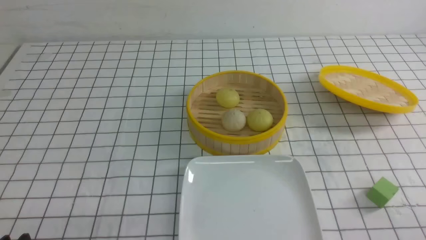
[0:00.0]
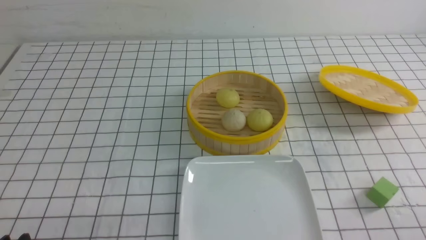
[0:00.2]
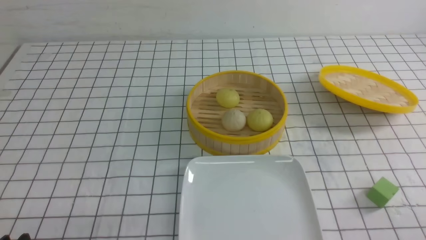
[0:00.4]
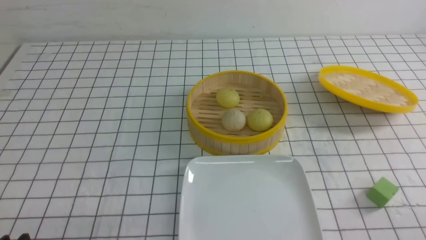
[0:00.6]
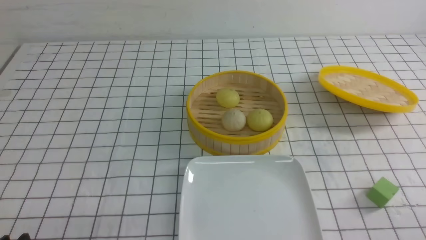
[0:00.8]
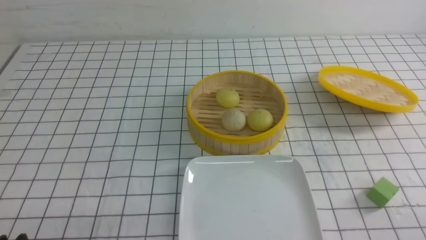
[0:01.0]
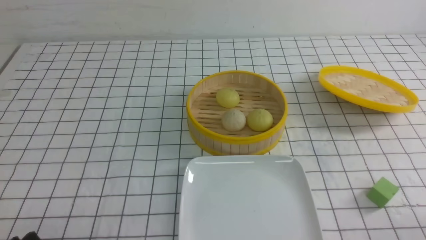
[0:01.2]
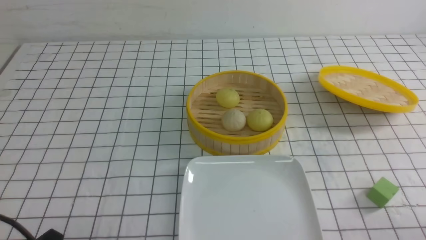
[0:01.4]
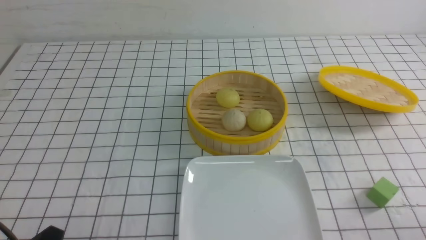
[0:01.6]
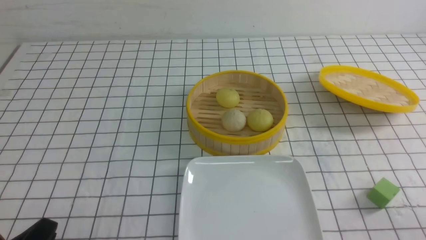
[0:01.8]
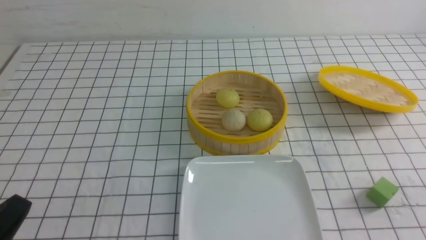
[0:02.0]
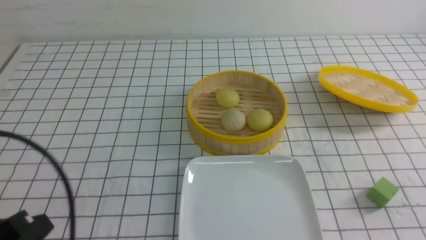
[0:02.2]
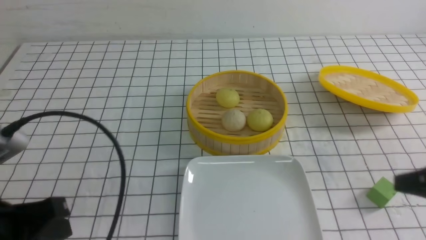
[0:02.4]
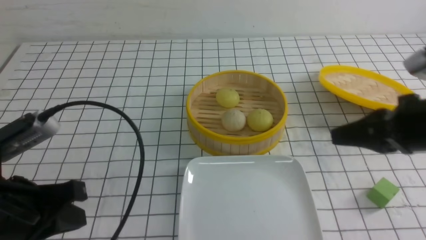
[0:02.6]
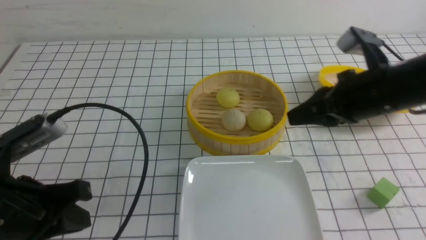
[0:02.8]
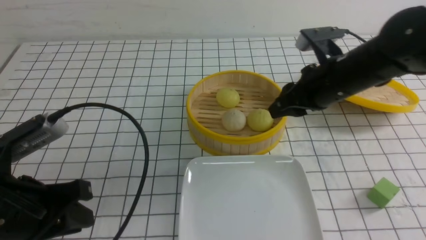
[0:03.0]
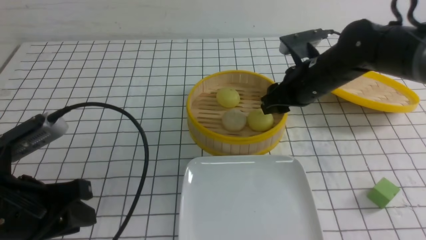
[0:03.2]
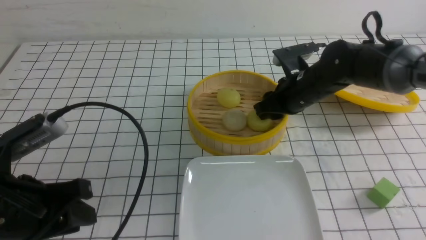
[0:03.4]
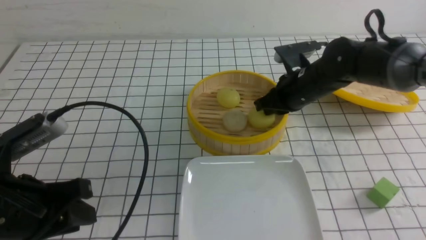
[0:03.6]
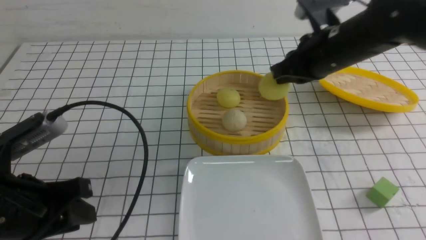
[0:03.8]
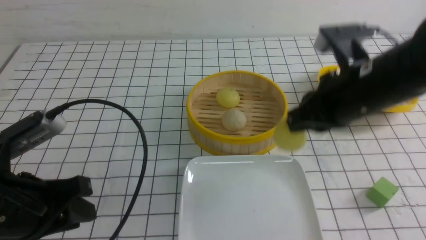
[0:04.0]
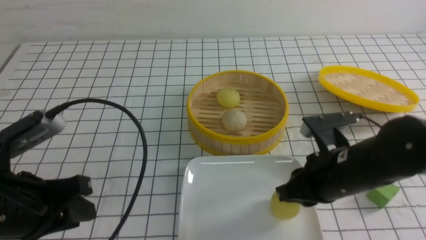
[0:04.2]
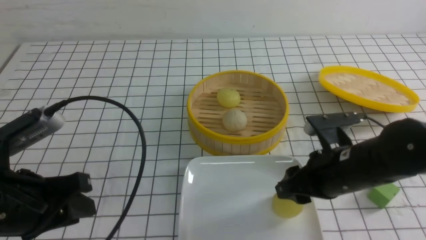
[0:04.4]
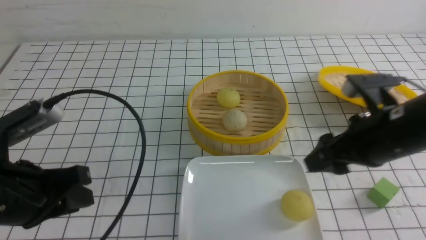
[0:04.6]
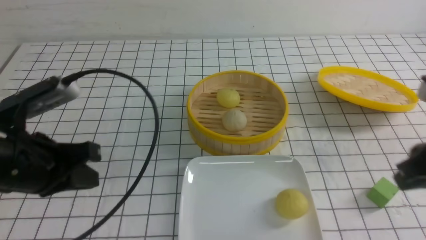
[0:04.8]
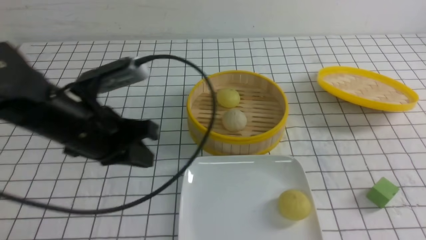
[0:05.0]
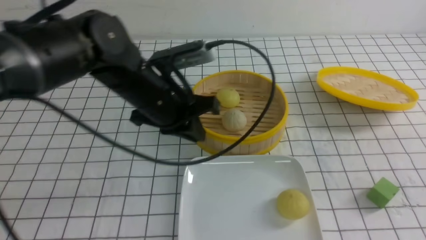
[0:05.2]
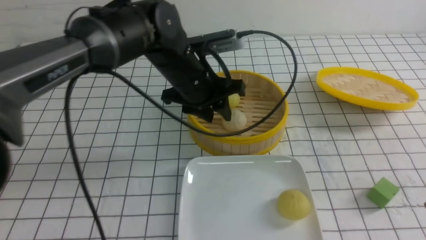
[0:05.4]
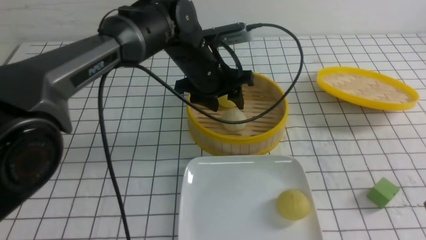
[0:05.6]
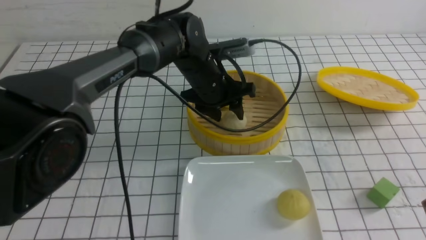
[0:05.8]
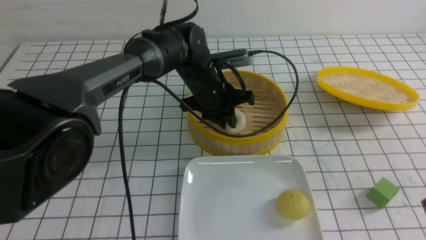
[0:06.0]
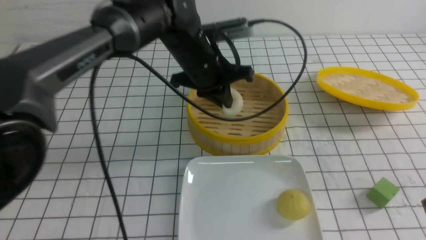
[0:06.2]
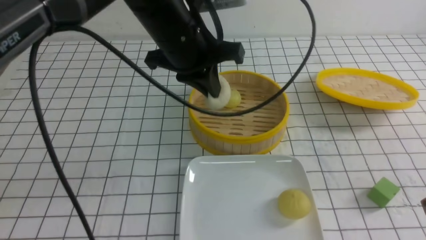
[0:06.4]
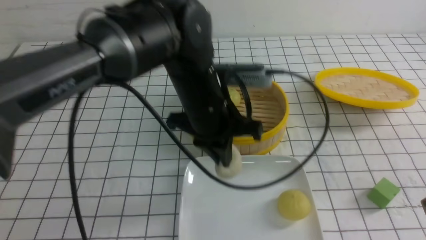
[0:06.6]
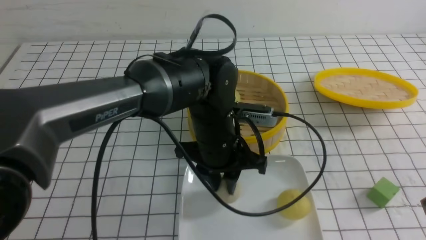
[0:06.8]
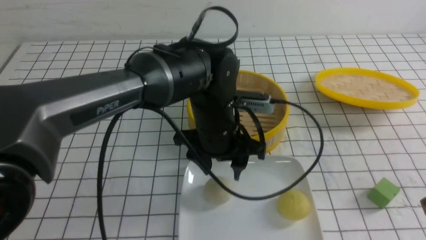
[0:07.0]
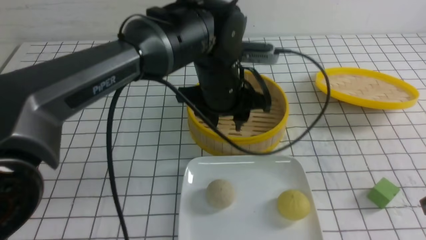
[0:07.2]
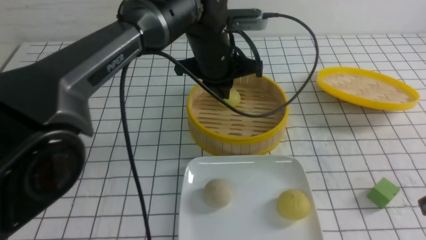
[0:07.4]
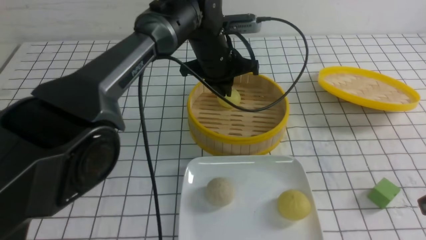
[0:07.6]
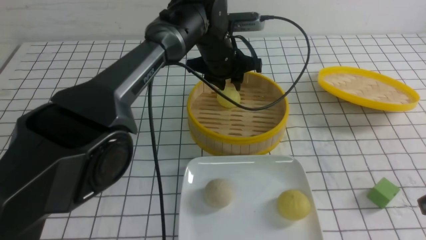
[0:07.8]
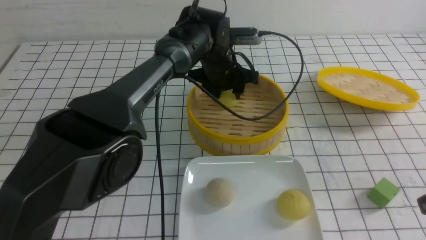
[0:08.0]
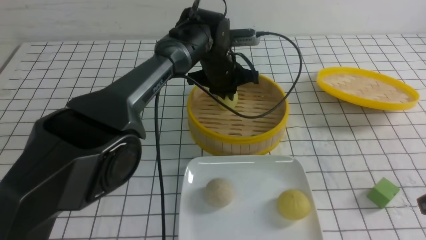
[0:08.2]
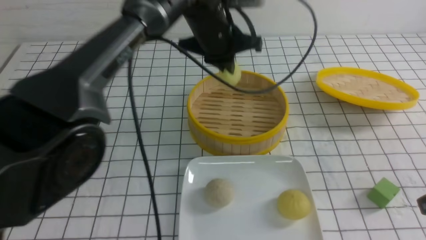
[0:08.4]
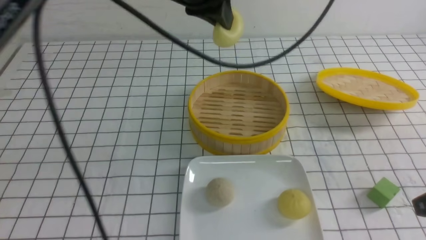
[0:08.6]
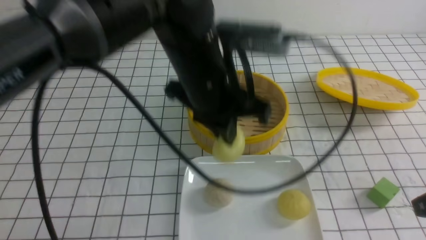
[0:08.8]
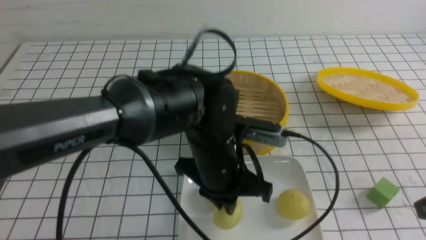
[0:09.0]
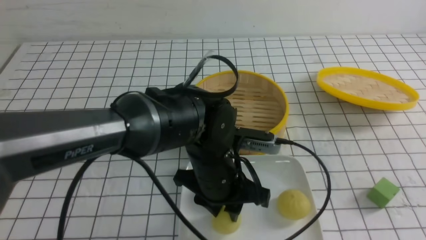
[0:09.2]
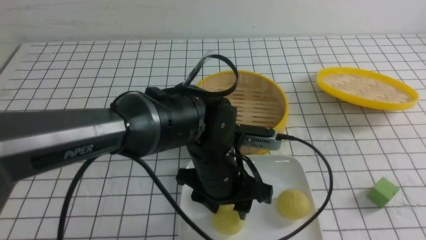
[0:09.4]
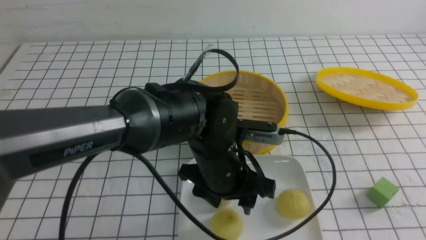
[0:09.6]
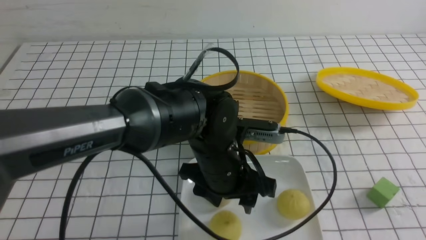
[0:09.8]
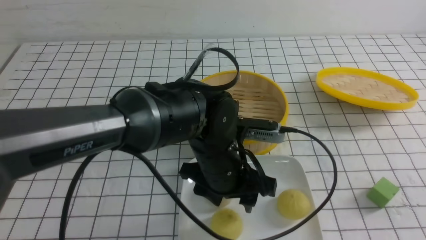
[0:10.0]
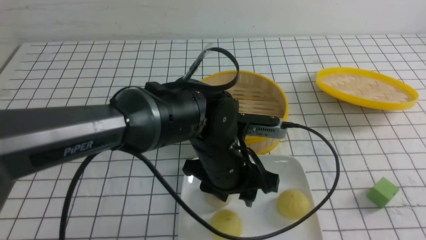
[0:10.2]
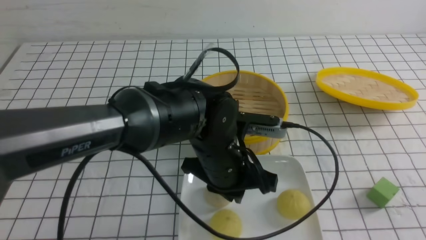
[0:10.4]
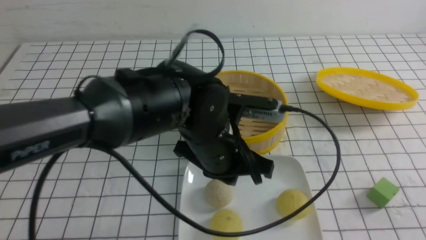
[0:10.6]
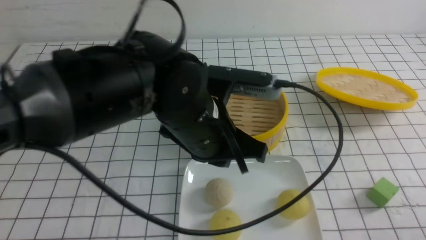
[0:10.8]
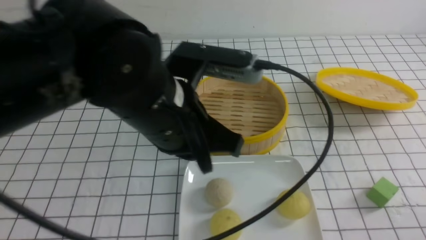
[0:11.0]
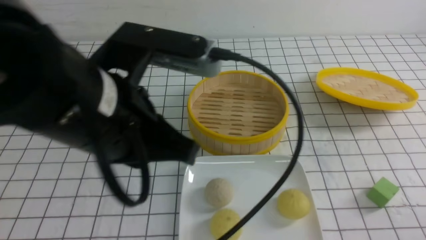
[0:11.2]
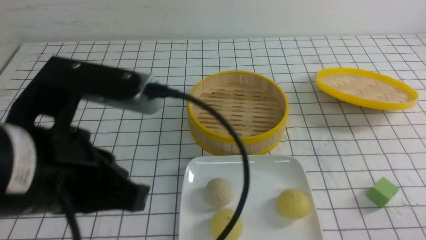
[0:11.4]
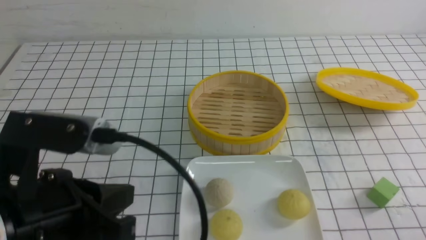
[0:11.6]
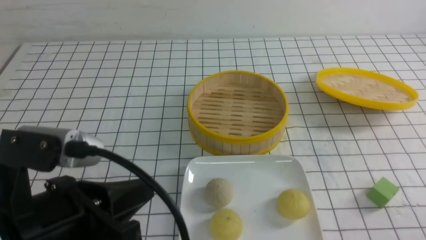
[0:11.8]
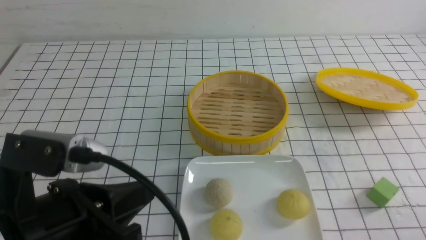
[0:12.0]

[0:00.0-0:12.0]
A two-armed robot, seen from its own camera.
Step, 0:00.0 to 0:03.4: use the right arm to grab the steamed stuffed bun that is closest to it.
Step, 0:03.8 to 0:04.2: use the right arm to put the steamed stuffed bun into the plate.
Step, 0:04.4 to 0:06.0: use the left arm to grab the steamed stuffed bun that is closest to it.
Step, 0:06.2 to 0:06.8: use the left arm to put the steamed stuffed bun into the plate.
Step, 0:07.2 to 0:08.0: use the left arm to grab the steamed stuffed bun that is closest to it.
Step, 0:08.4 to 0:09.2: use the left arm to put the steamed stuffed bun into the plate.
0:01.6 to 0:03.0: The right gripper travels forward and to the left by approximately 35 cm, and closes, then opens again. Meanwhile the left gripper moves forward and upward, some 15 cm.
0:03.0 to 0:04.4: The right gripper goes about 10 cm backward, and closes, then opens again.
0:04.4 to 0:06.0: The left gripper travels forward and to the right by roughly 35 cm, and opens, then closes once more, while the right gripper goes some 15 cm to the right and backward, and closes.
0:06.0 to 0:07.6: The left gripper moves some 10 cm backward and comes back, and opens and closes again.
0:07.6 to 0:09.0: The left gripper goes about 20 cm backward.
0:09.0 to 0:10.4: The right gripper shifts roughly 10 cm backward. The left gripper opens, then closes again.
0:10.4 to 0:12.0: The right gripper heads downward, covering roughly 10 cm. The left gripper goes approximately 25 cm to the left, backward and upward.

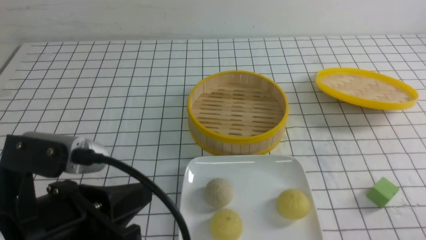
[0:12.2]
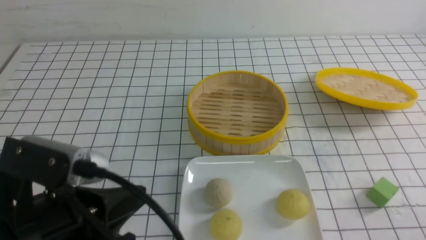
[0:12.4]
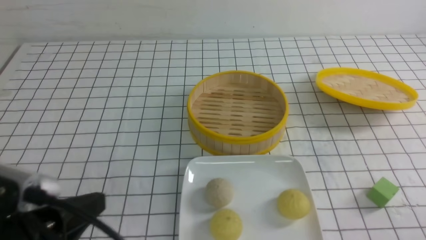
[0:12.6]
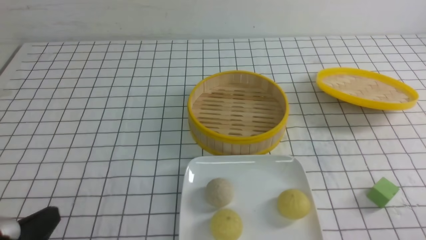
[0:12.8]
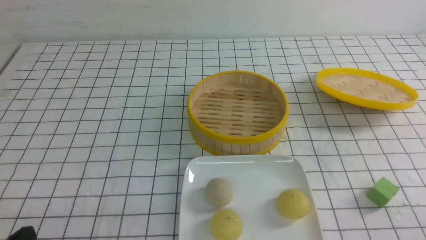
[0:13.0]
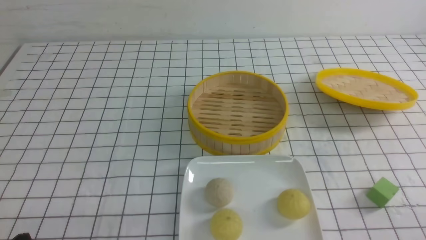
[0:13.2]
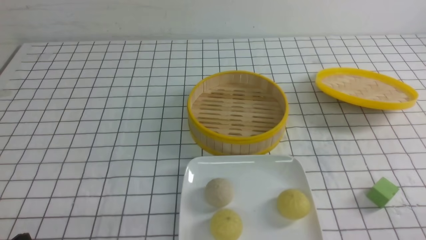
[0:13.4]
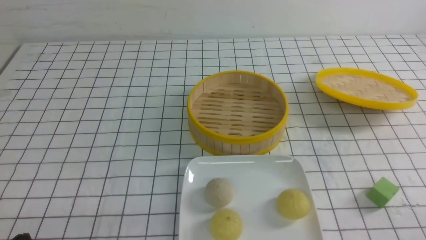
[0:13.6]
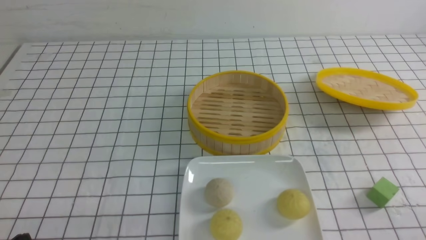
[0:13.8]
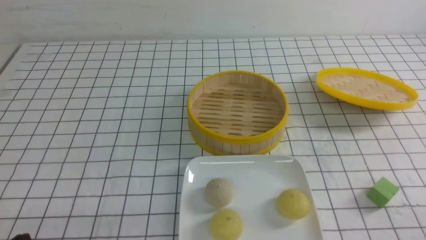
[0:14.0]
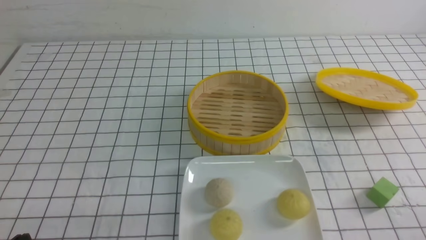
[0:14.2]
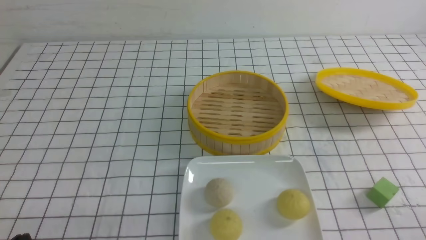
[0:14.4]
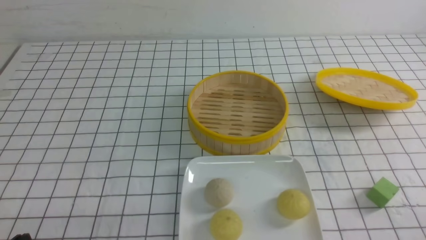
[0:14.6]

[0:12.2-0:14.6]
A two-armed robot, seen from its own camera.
0:12.2 to 0:13.4: The left gripper shifts about 15 cm downward and to the left.
0:13.4 to 0:14.6: Neither gripper changes place.

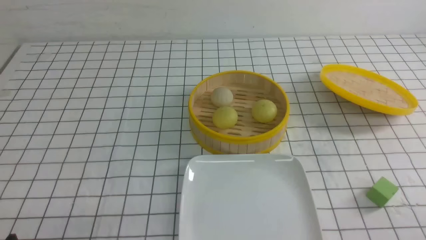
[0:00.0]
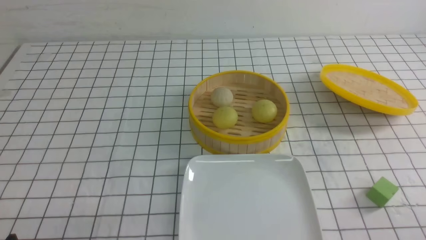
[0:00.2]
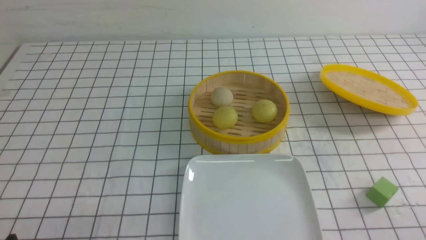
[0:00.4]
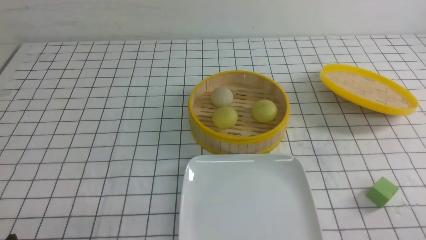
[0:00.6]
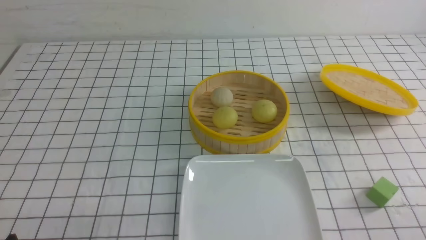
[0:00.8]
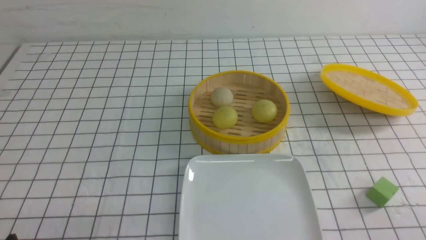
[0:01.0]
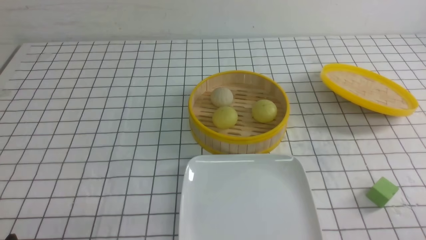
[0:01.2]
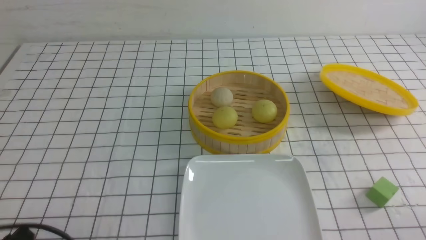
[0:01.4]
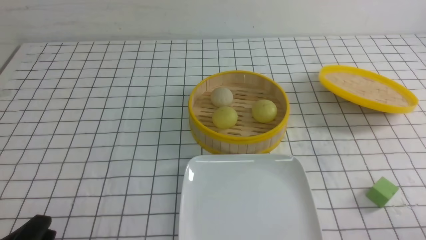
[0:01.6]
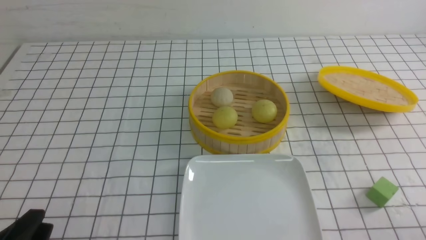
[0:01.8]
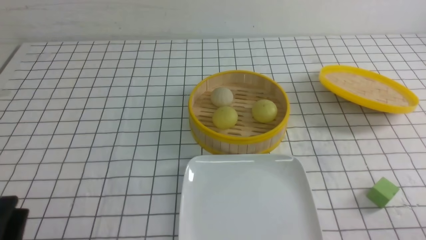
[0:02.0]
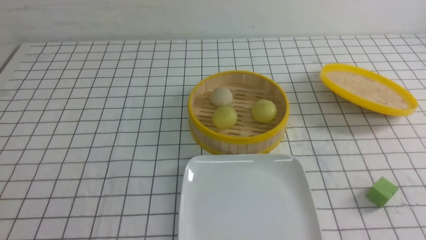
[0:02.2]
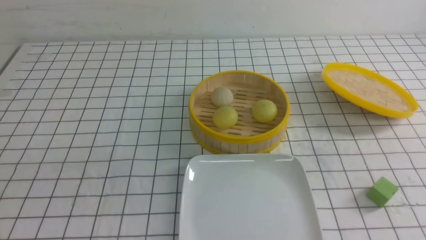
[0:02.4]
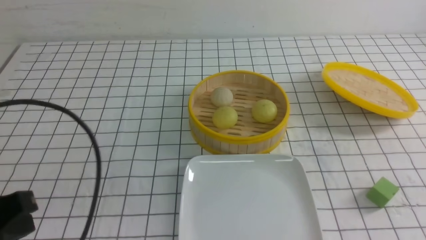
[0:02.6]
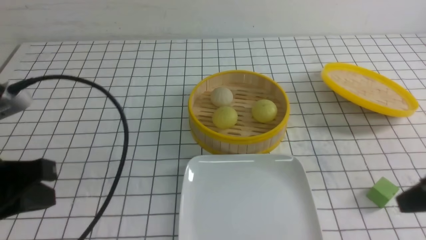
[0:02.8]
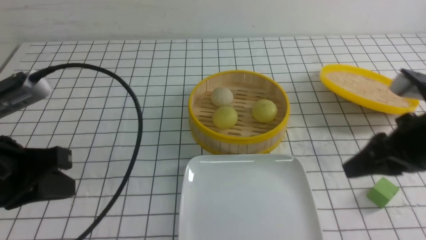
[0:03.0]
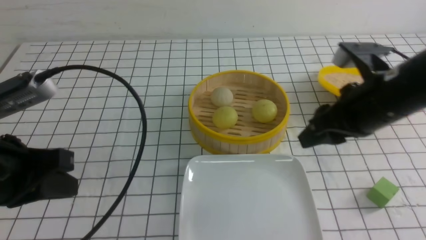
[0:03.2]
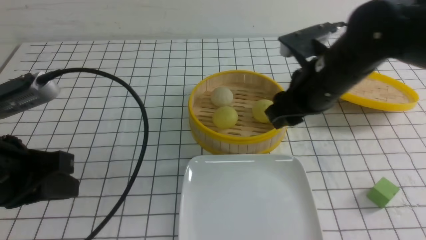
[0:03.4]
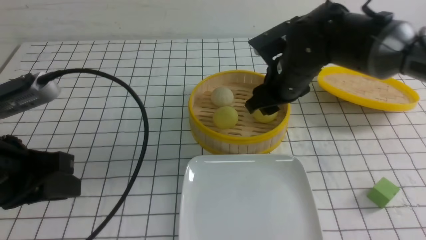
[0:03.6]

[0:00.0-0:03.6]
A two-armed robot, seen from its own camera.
0:01.8 to 0:03.6: The right gripper is displaced forward and to the left by about 40 cm, and opens. The left gripper goes some 15 cm upward and forward.
